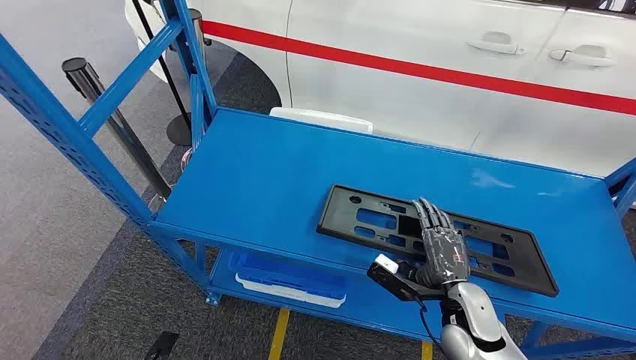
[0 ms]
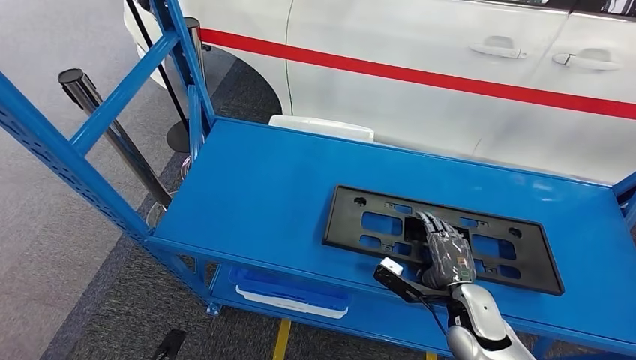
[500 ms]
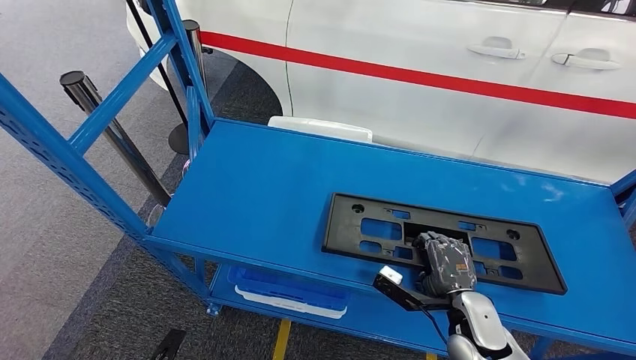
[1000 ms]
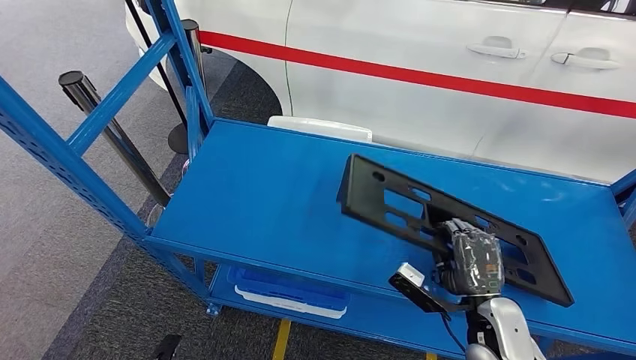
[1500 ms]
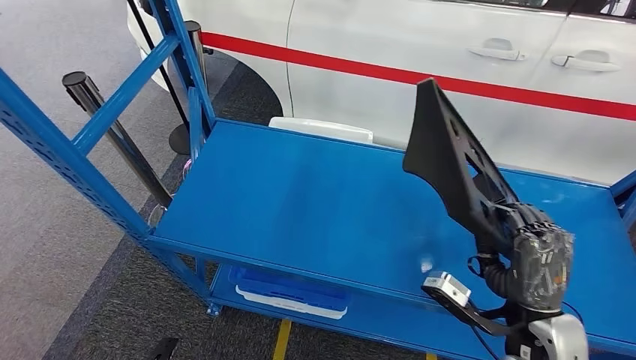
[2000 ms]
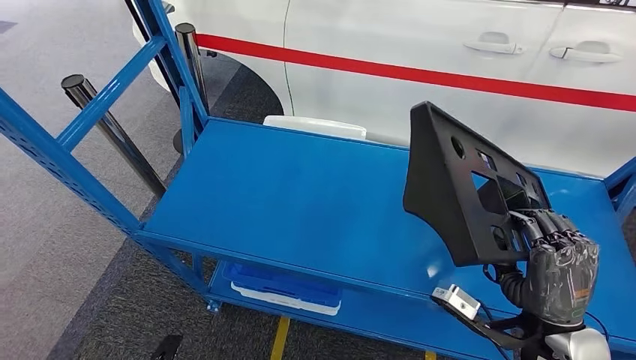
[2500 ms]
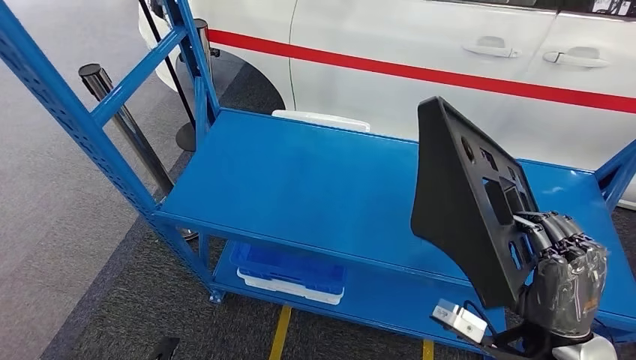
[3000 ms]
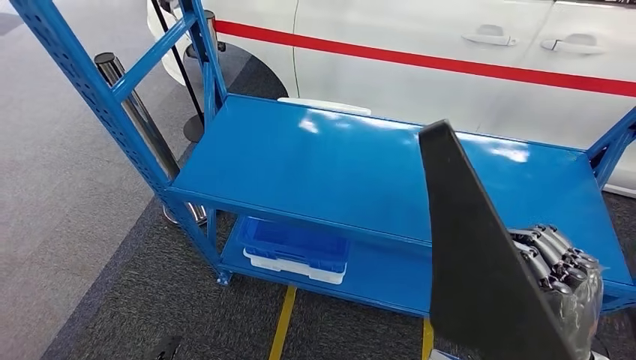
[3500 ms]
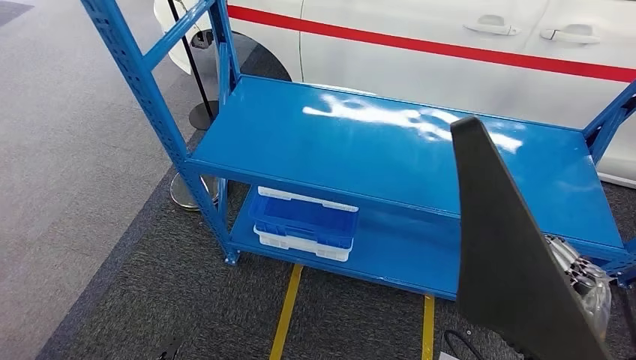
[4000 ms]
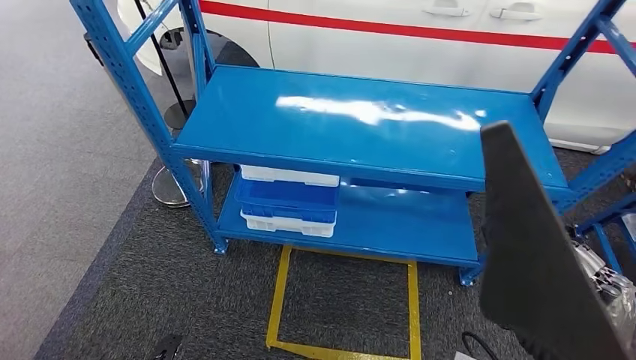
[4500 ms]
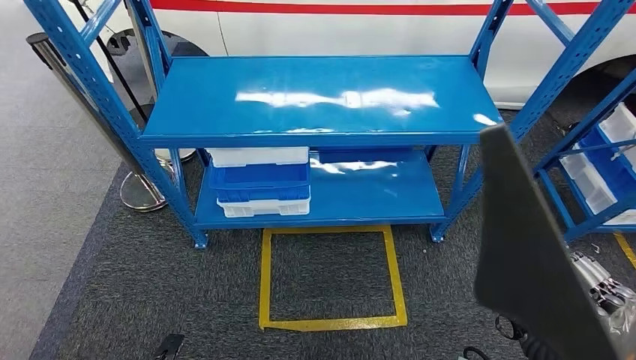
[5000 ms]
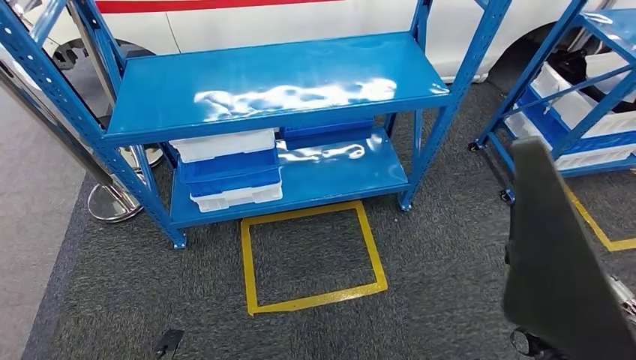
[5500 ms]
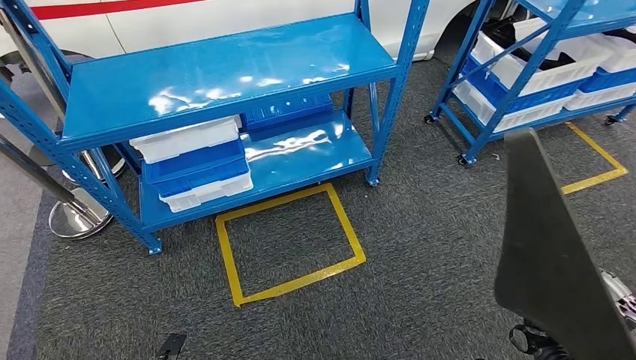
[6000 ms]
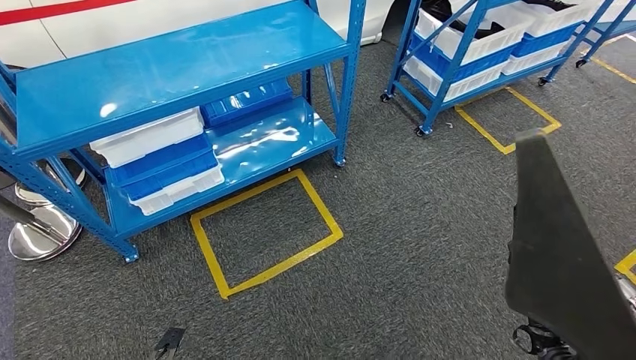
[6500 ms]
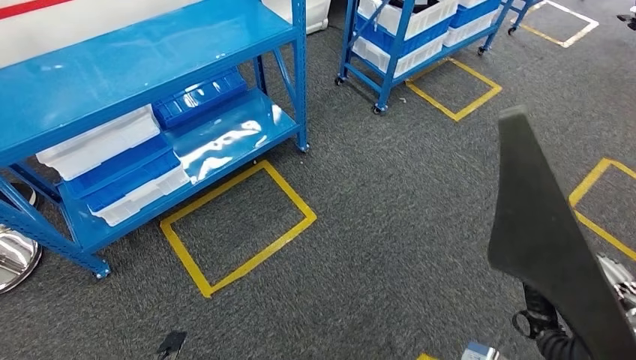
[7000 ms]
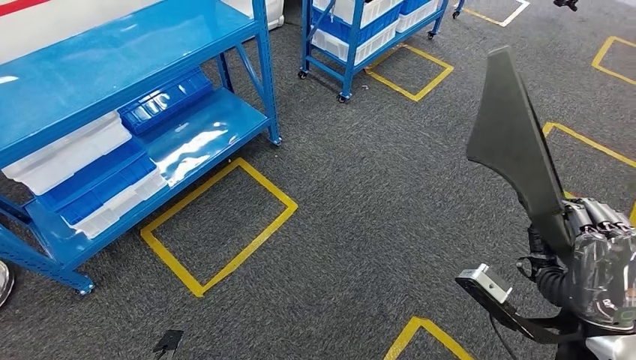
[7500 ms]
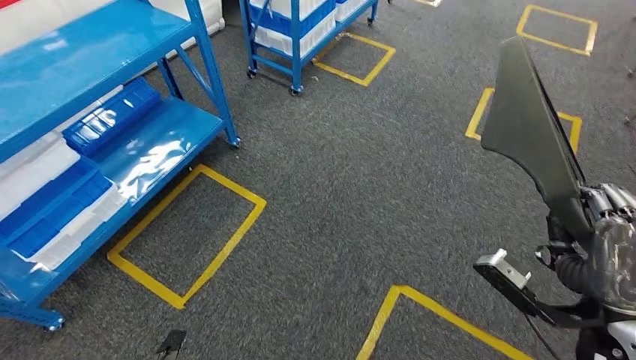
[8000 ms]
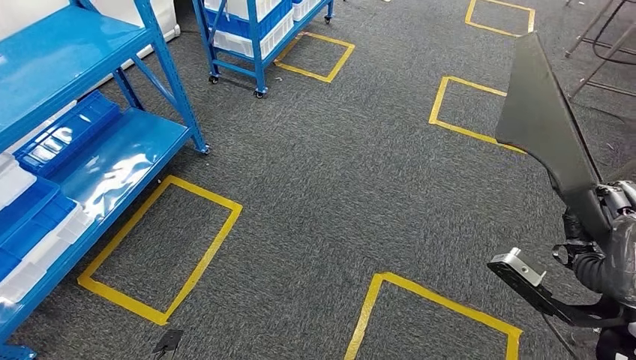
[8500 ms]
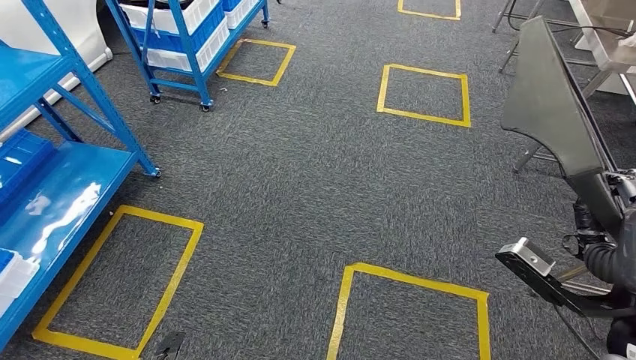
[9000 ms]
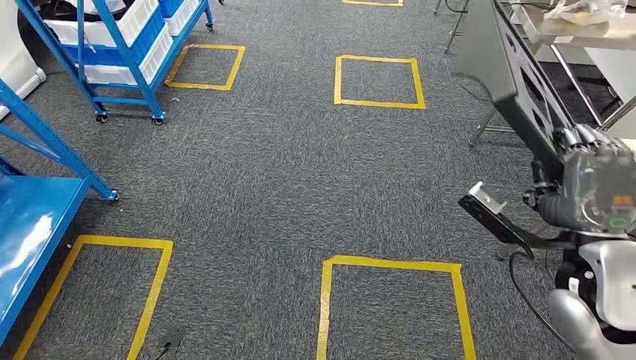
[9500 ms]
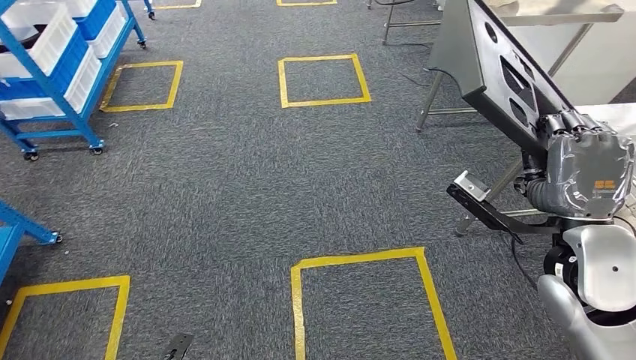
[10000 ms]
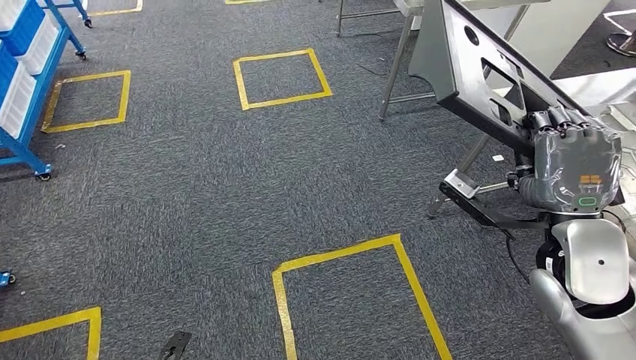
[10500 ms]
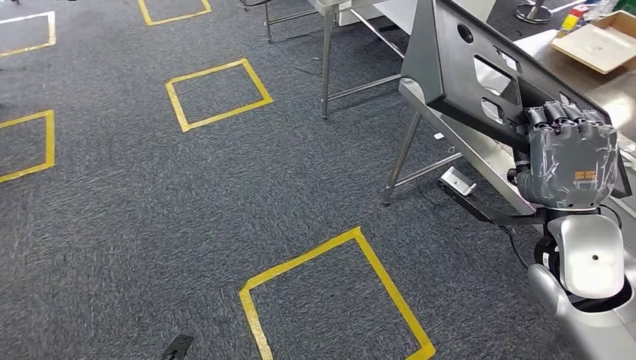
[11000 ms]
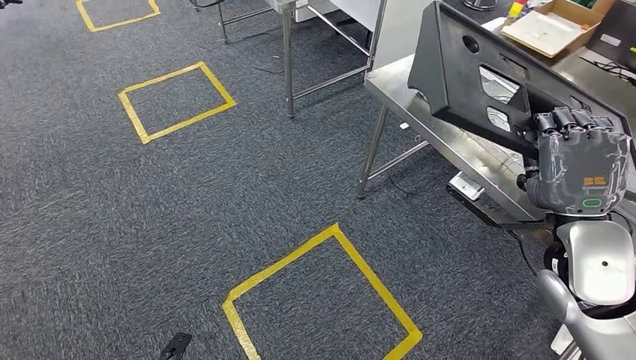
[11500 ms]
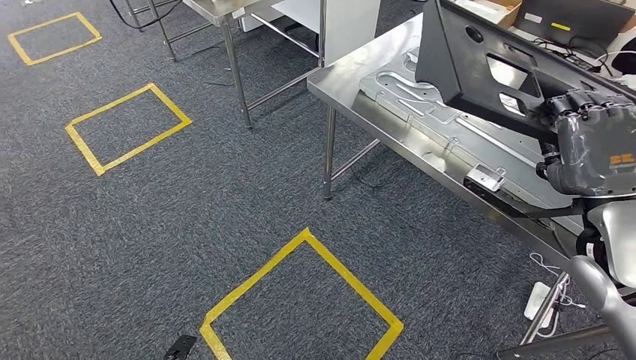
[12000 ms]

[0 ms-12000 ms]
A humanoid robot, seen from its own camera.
Step, 0 ms to 4500 ms: Pick up the large material from the shelf.

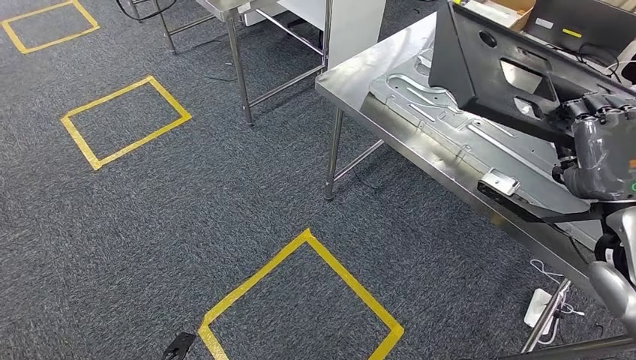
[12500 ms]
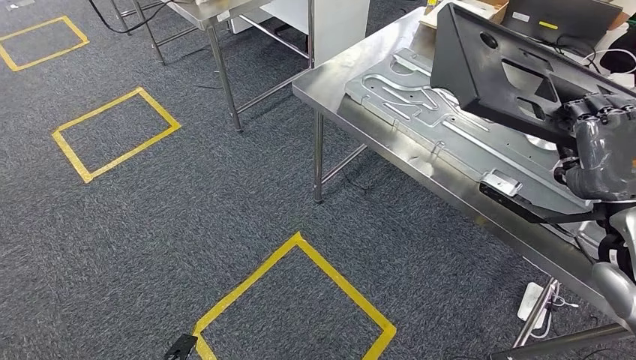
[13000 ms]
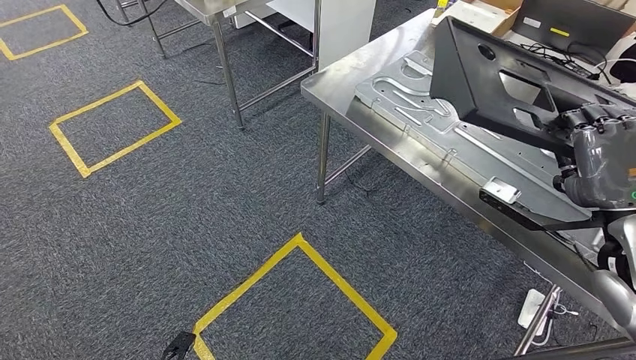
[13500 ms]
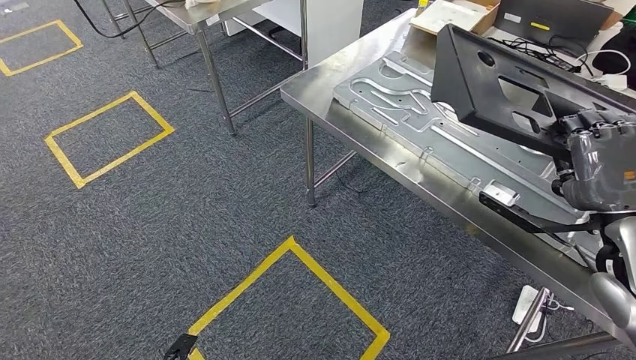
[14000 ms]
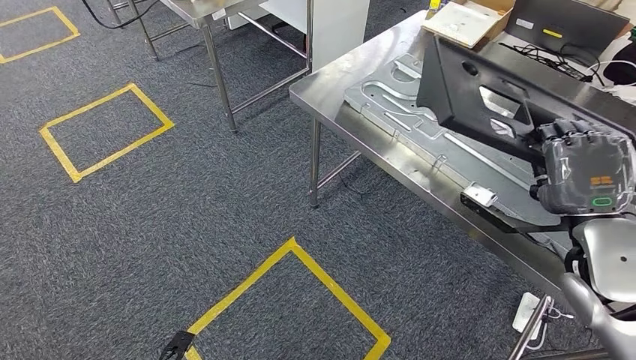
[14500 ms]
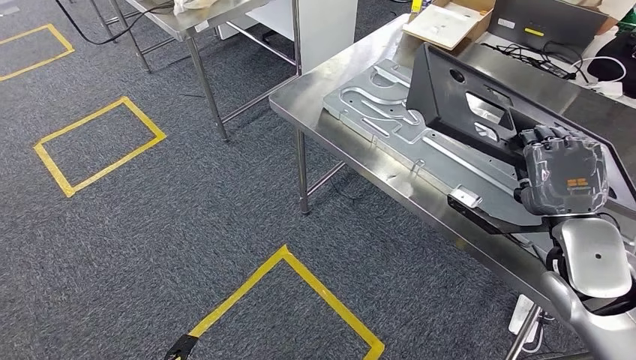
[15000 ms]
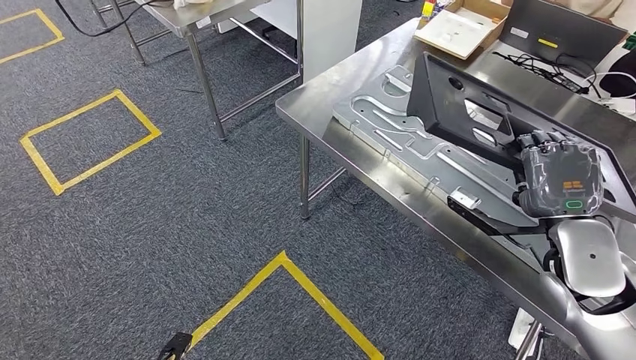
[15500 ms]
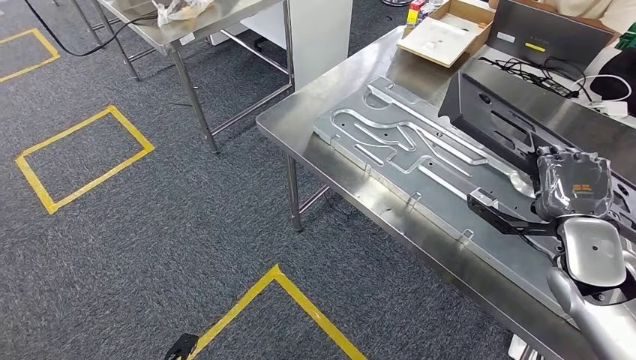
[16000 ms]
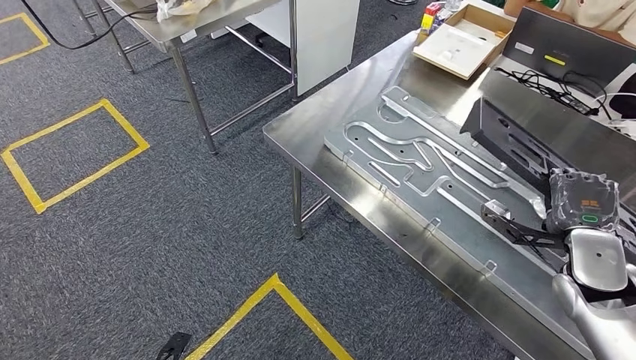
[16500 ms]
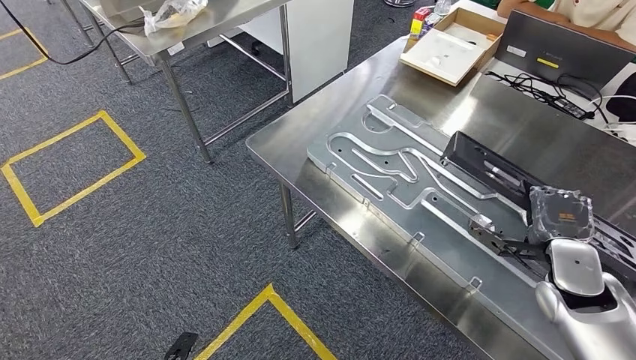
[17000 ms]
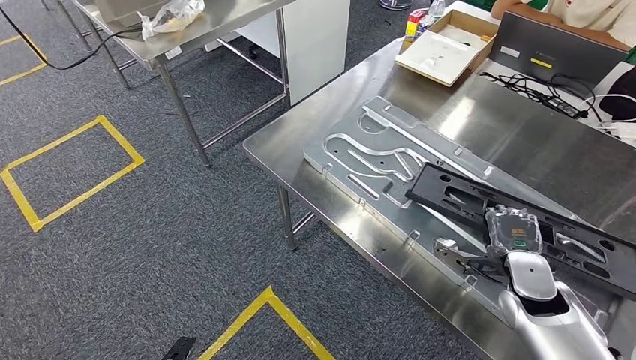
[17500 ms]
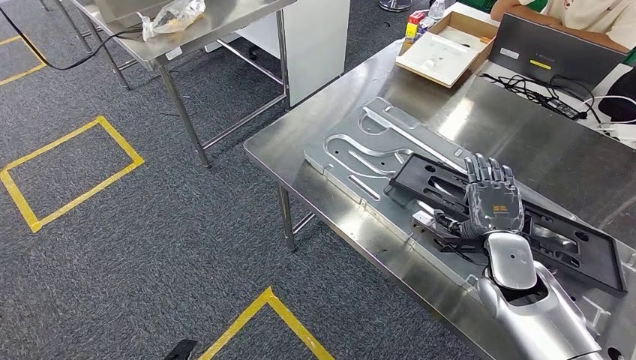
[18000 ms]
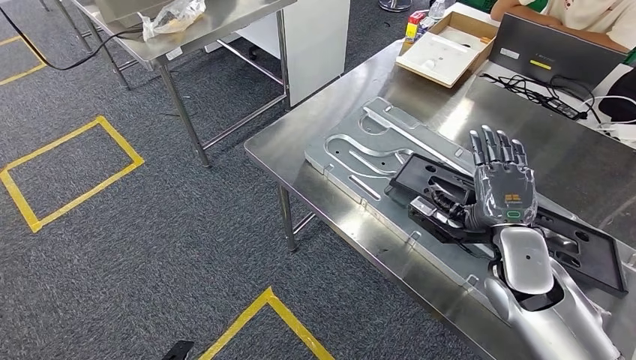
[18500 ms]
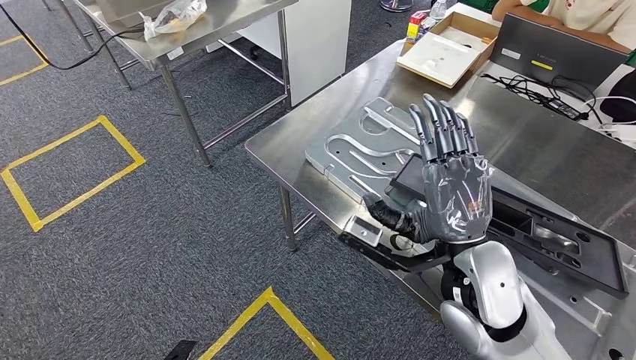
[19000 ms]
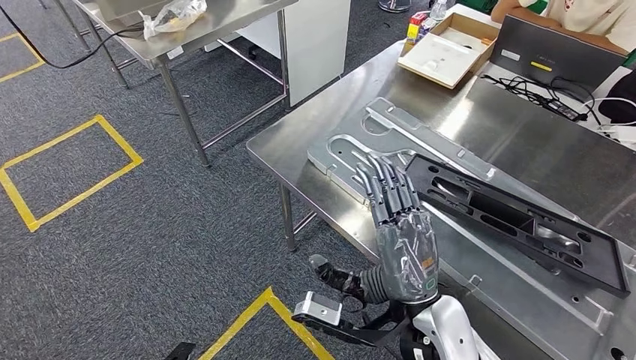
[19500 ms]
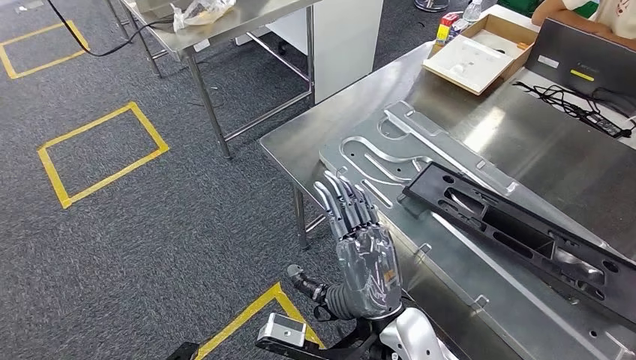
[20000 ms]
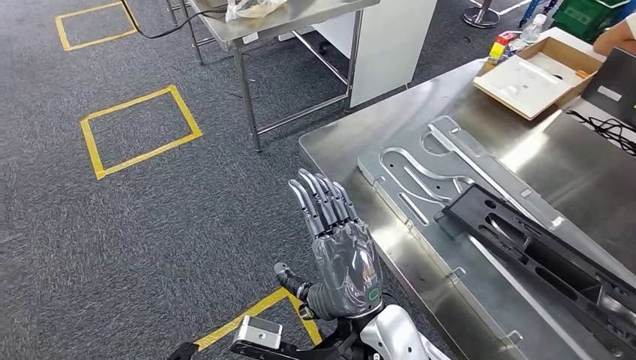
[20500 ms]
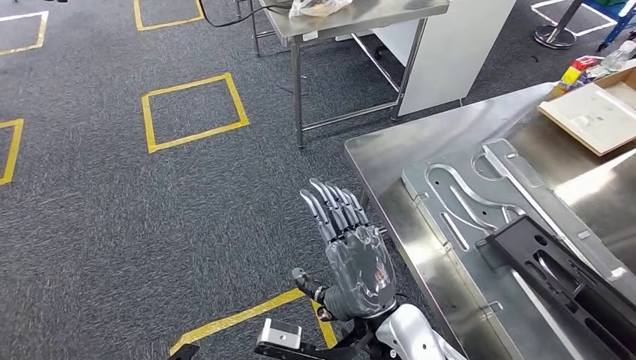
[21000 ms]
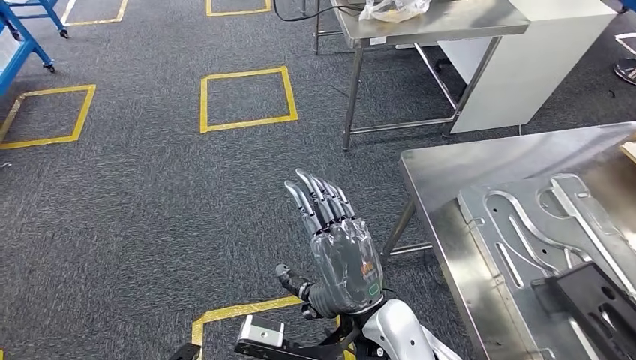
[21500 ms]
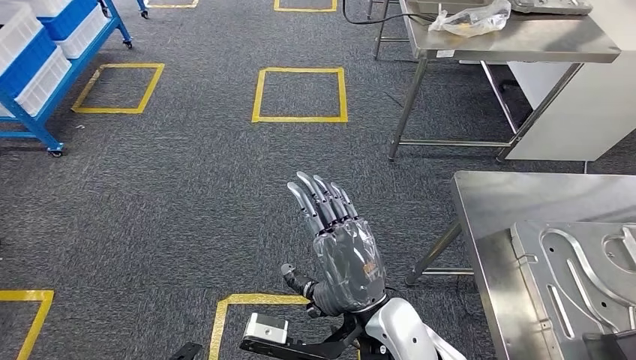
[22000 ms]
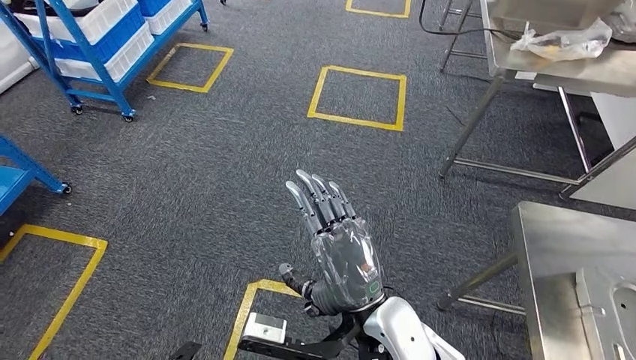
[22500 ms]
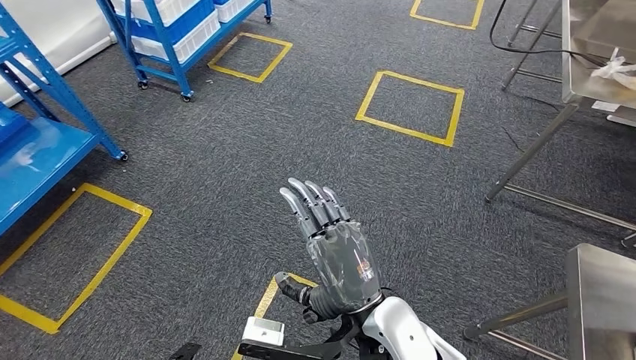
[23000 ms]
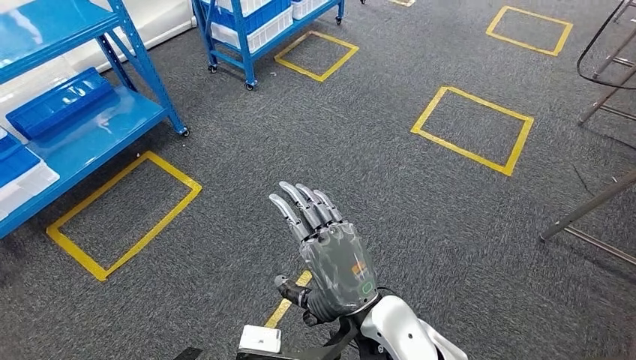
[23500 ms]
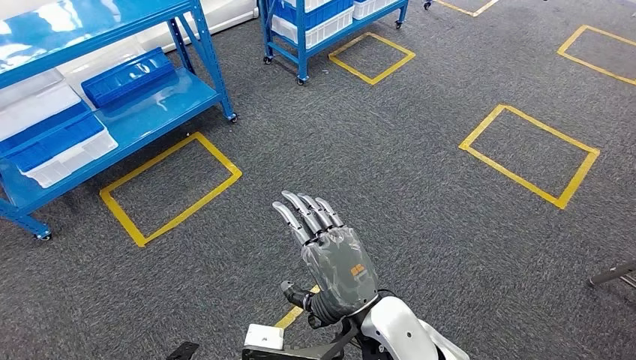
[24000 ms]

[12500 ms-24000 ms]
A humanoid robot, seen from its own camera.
Step, 12500 ms to 15000 ms: Move the large material to the workbench.
Step, 16500 ms to 20500 ms: Insert the large material into the corresponding slot on the workbench.
